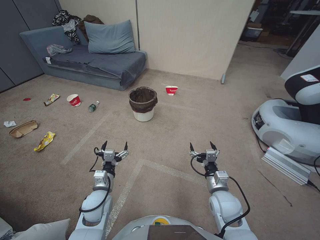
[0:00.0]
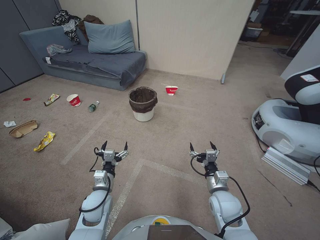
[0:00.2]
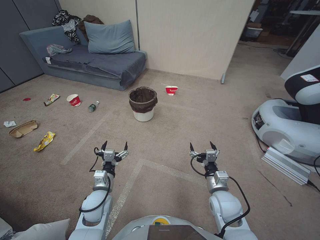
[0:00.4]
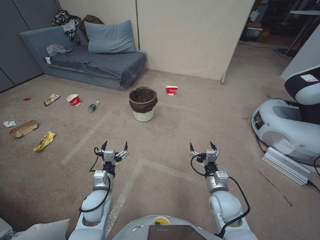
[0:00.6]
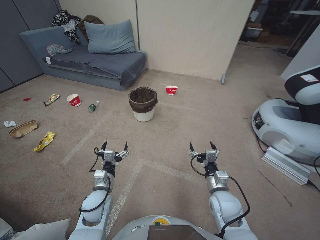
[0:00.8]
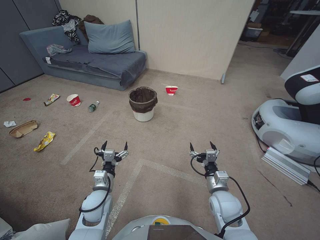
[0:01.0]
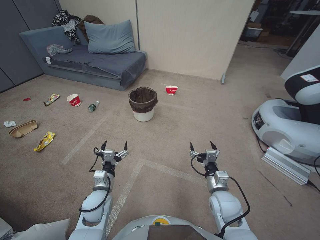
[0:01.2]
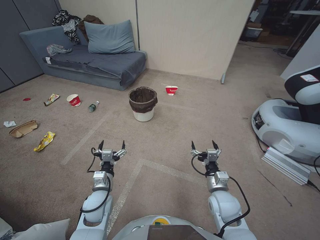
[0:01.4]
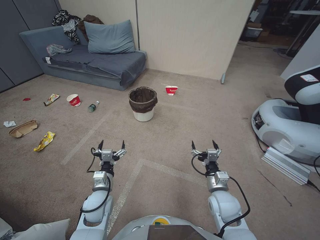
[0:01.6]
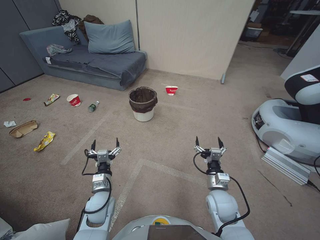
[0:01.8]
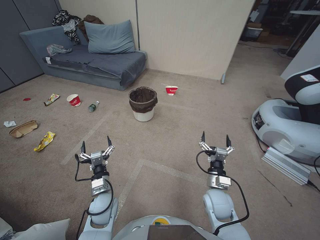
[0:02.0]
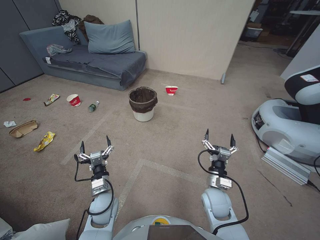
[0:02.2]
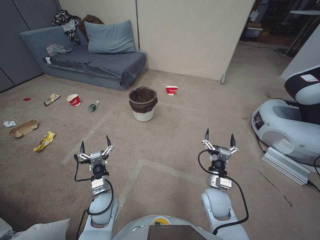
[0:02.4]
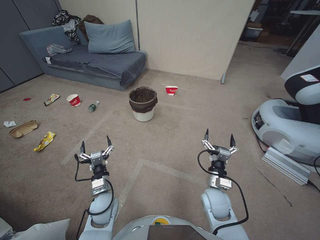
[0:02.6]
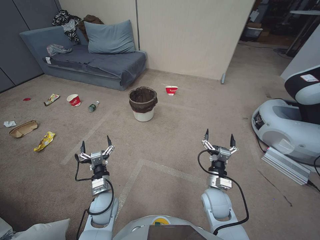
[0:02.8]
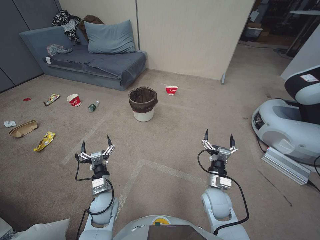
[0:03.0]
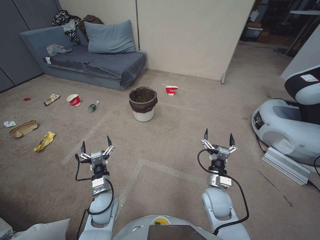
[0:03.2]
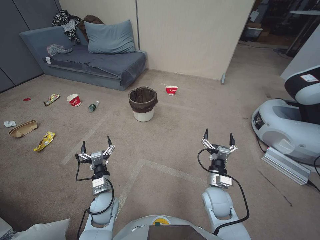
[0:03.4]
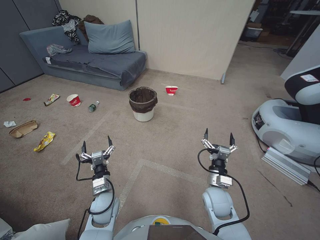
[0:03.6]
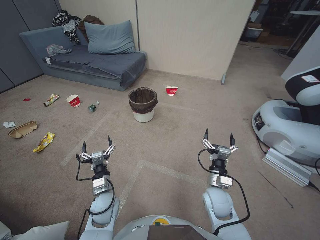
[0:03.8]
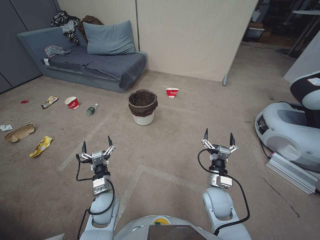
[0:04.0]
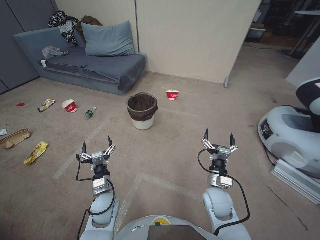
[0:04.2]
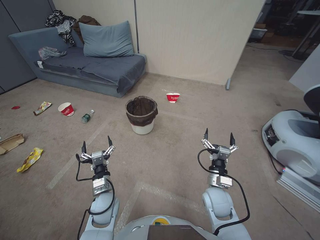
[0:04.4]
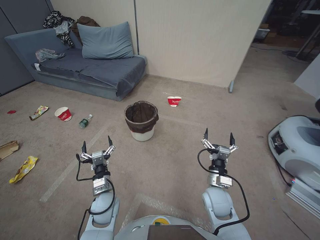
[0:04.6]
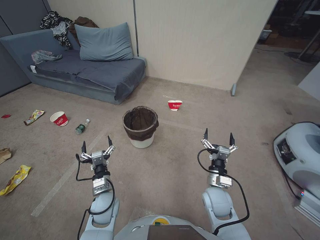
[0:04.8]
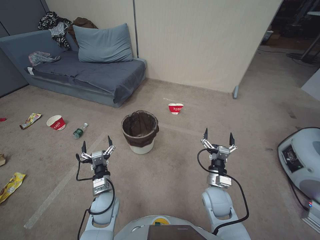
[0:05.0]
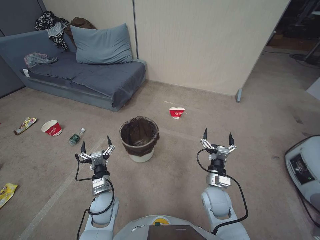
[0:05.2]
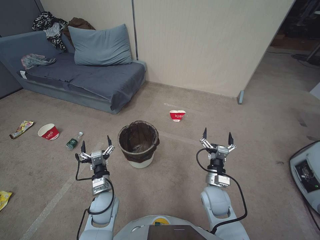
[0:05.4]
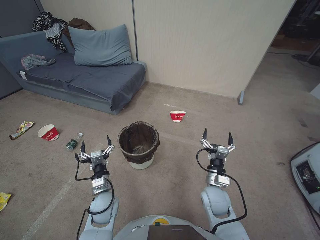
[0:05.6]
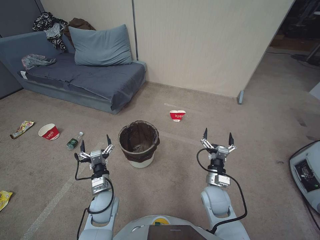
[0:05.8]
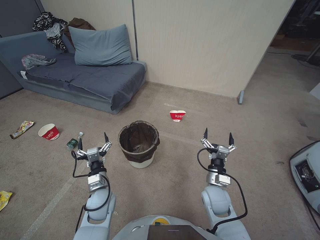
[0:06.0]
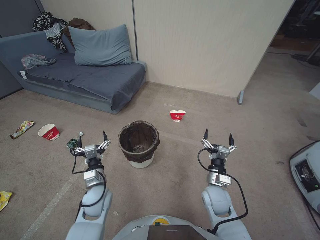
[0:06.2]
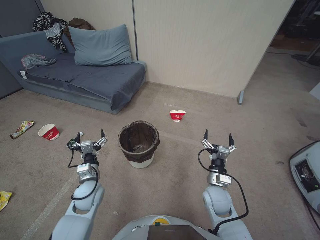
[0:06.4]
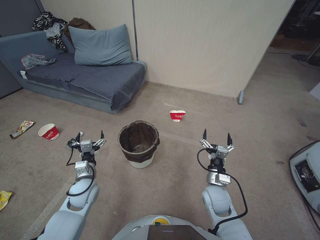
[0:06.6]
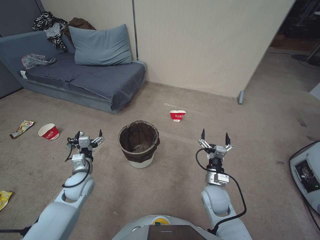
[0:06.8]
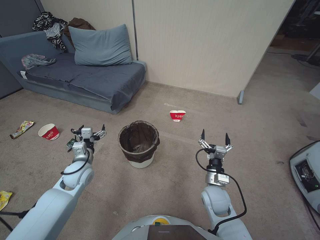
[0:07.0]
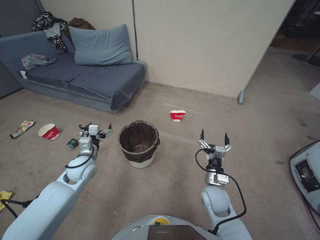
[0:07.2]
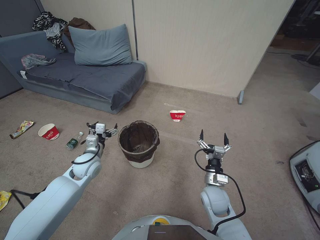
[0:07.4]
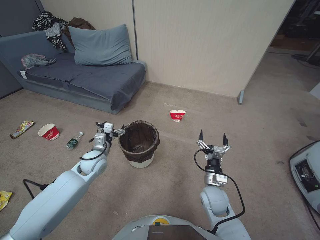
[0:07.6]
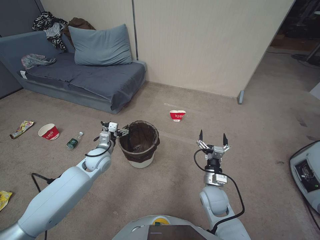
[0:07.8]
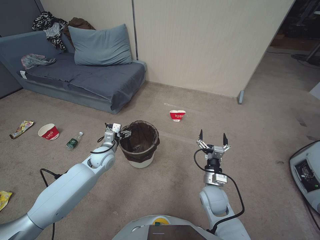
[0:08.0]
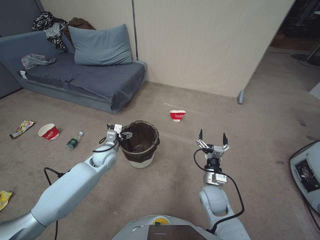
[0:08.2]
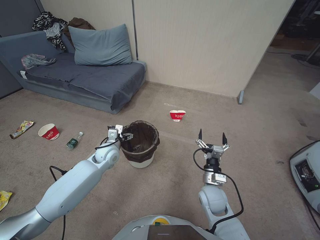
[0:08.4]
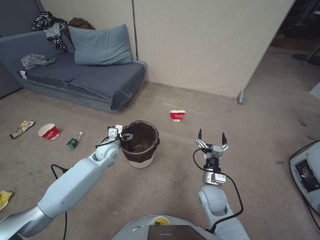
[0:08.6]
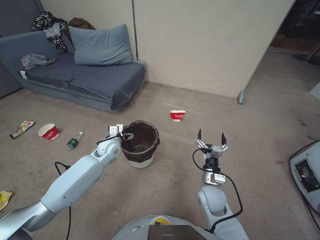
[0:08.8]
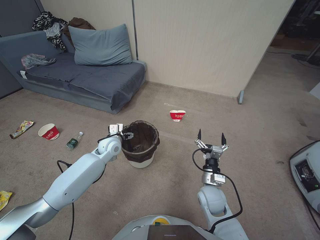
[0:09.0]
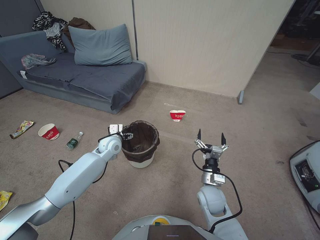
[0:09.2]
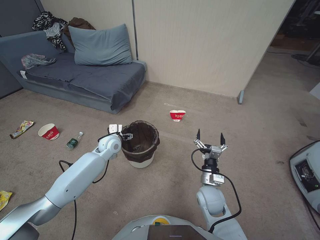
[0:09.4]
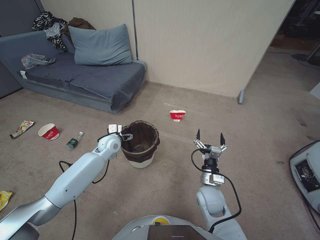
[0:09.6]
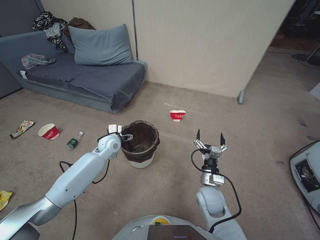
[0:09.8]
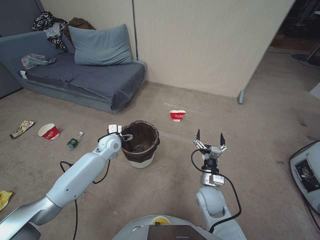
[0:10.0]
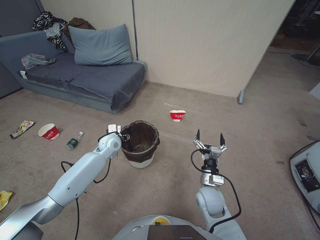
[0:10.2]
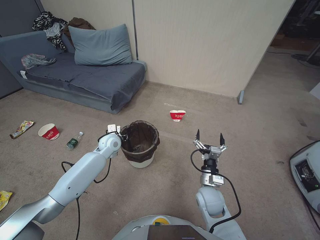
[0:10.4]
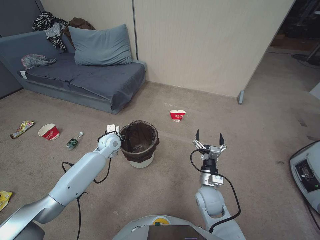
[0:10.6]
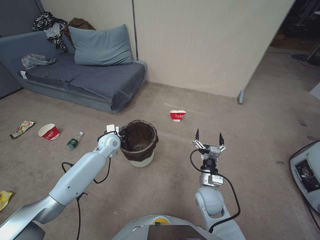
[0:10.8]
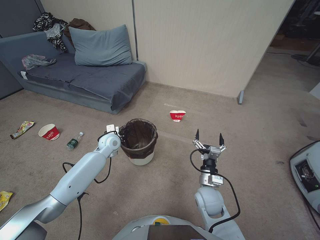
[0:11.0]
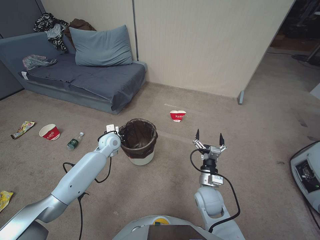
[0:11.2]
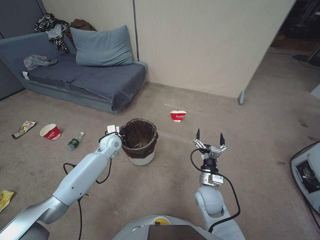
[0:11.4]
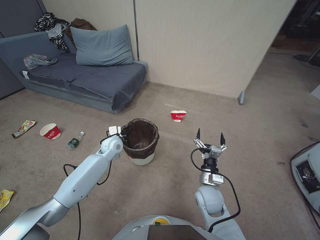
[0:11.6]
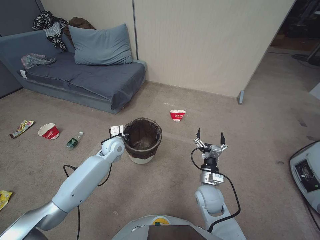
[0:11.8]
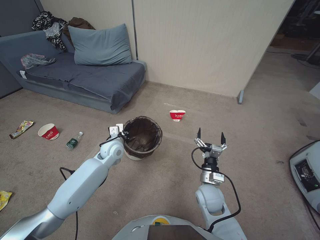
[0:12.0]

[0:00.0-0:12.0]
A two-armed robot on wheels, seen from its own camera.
Task of the whole recording: Pick up the trash bin, then pick up the garbage from the floor and place it into the trash bin.
0:03.0 to 0:04.4: Both grippers stay about where they are.
0:06.0 to 0:07.6: The left gripper is displaced forward, to the left and upward by some 15 cm.
0:07.6 to 0:09.0: The left gripper moves forward and to the right, some 10 cm.
0:09.0 to 0:10.4: The left gripper closes.
0:10.4 to 0:12.0: The left gripper closes its fingers.

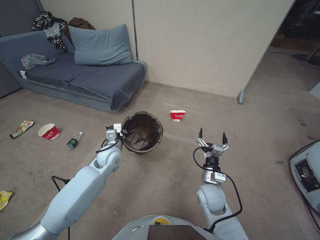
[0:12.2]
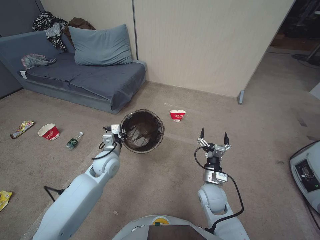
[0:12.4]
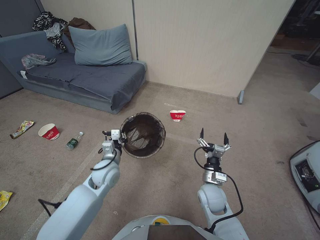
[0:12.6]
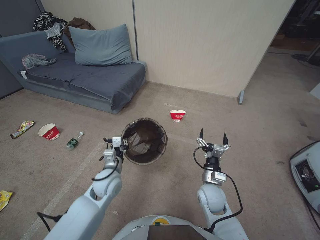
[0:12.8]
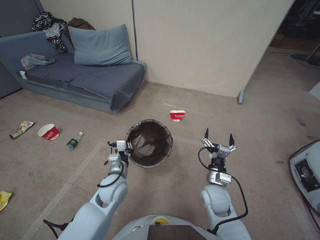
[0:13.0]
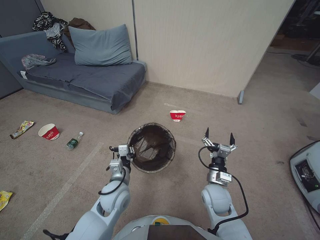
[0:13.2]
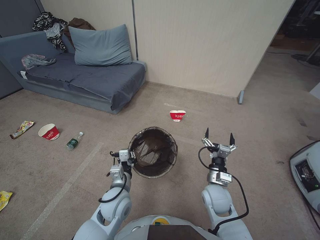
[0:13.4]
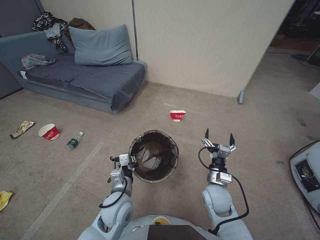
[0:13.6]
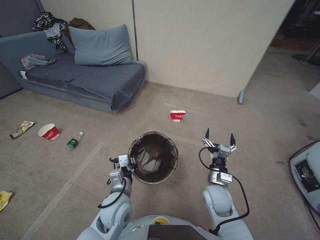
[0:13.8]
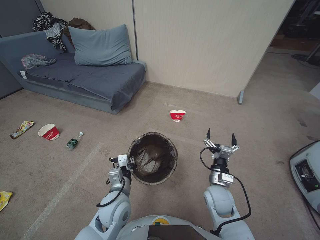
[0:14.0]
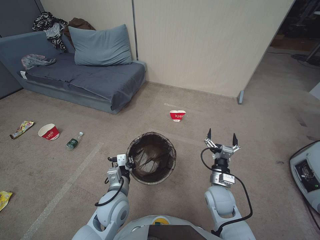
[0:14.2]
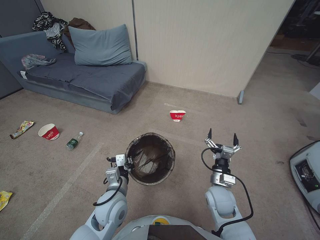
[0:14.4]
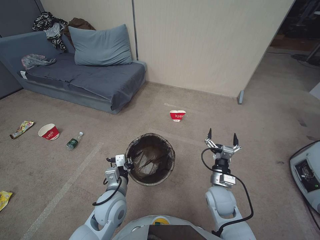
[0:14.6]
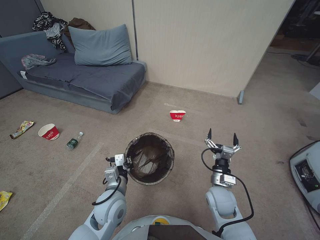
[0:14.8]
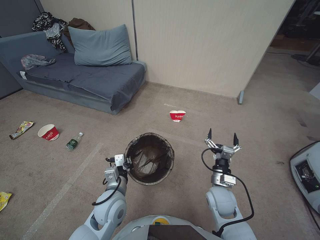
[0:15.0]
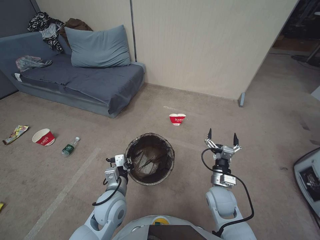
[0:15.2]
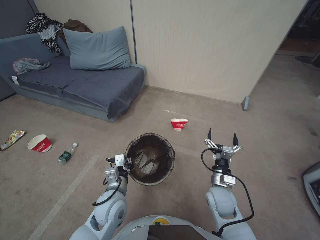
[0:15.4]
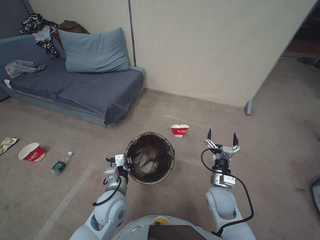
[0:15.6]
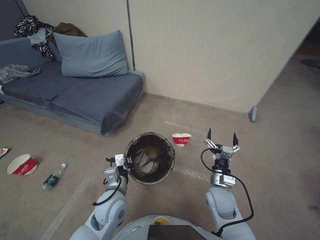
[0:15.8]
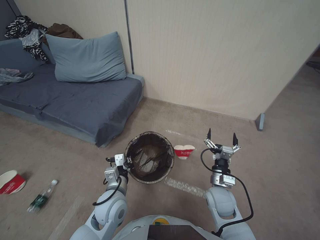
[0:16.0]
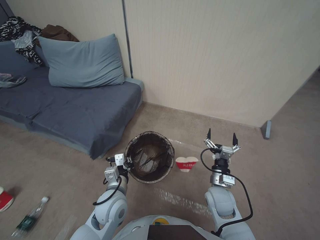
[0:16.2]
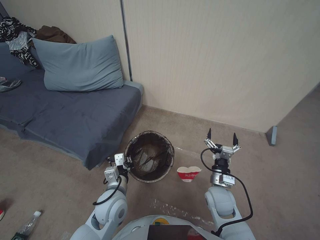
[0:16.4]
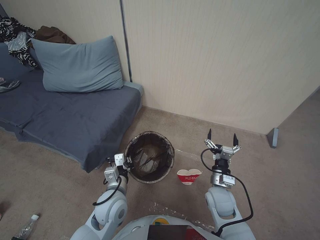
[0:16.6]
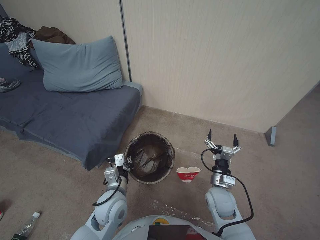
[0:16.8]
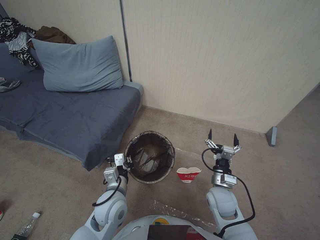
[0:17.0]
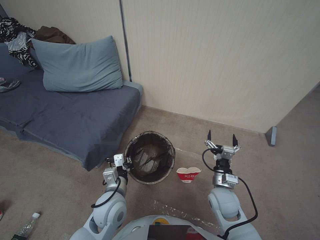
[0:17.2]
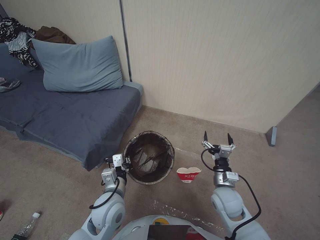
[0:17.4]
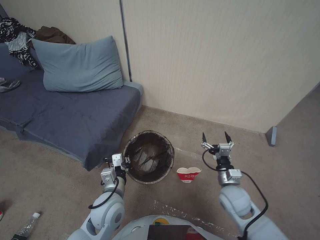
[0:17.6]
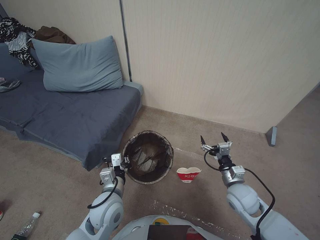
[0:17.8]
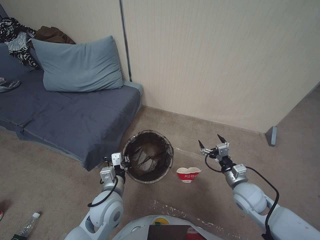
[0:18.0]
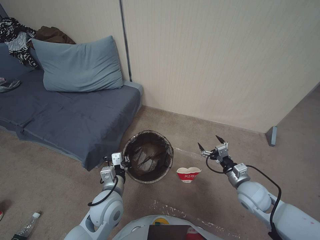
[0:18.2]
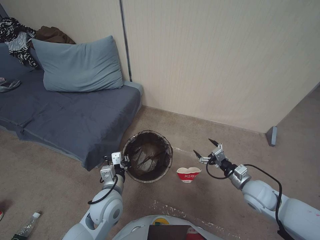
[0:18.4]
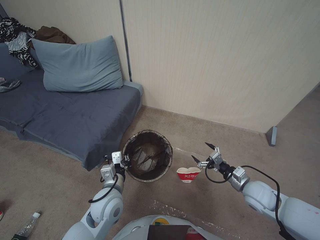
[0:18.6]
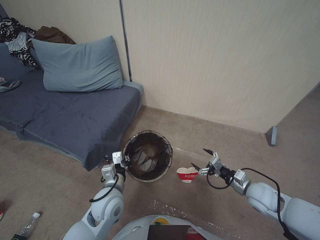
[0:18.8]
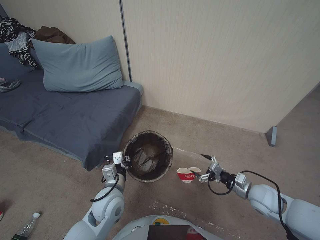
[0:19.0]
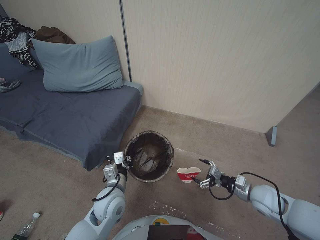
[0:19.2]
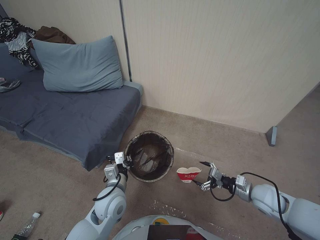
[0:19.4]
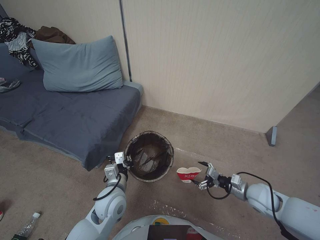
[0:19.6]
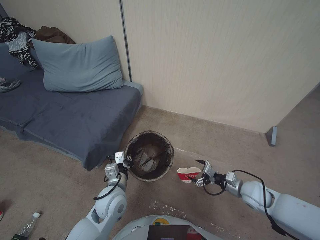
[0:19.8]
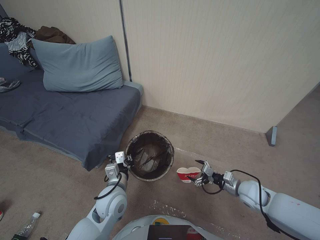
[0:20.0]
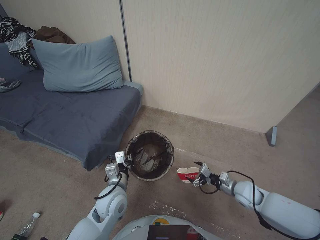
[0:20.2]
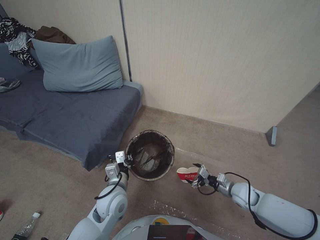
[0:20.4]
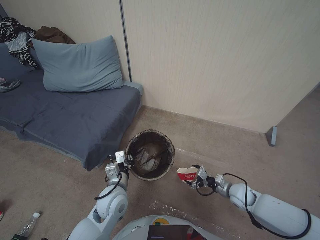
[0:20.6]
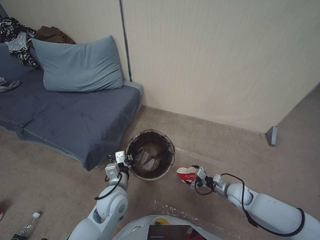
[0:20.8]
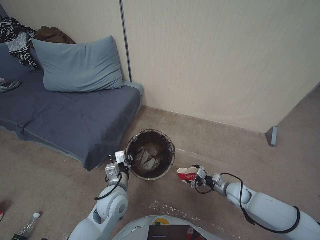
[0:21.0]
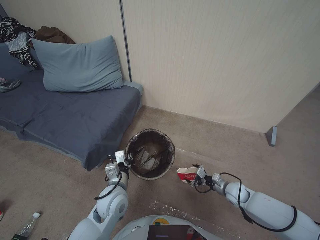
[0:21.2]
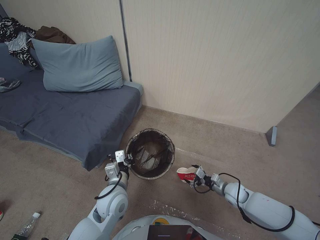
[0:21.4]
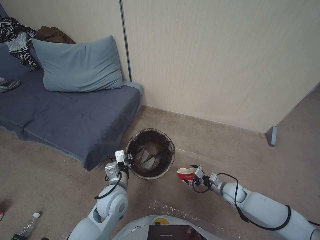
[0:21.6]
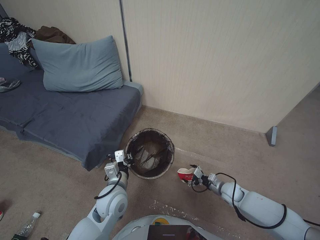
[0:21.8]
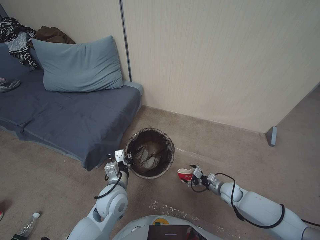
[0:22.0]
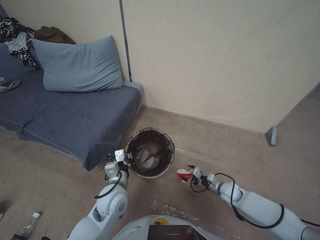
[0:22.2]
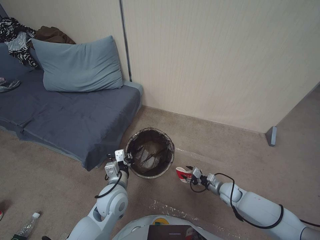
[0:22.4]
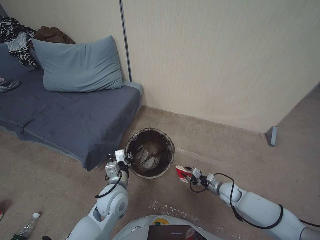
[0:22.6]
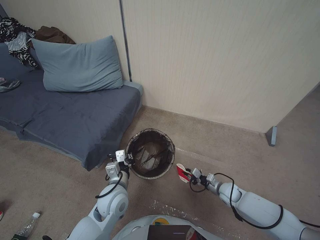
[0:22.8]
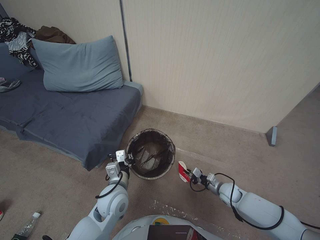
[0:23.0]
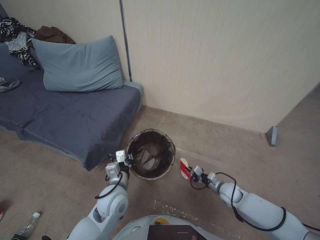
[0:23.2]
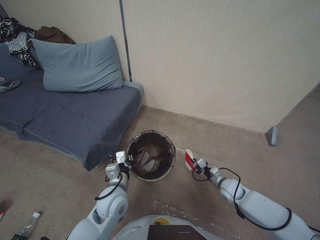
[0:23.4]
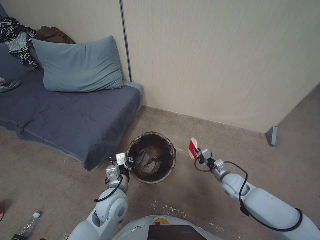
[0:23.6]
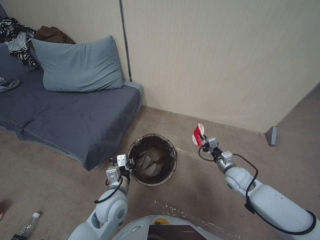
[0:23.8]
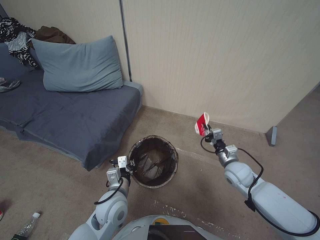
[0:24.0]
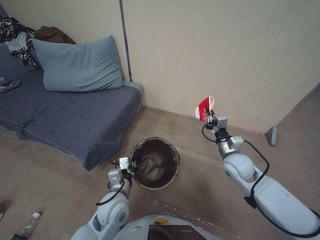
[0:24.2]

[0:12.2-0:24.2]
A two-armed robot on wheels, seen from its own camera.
Task of the whole recording: Pick up the trash bin, then pick up the garbage from the floor and place it into the trash bin.
0:12.2 to 0:13.8: The left gripper travels backward by approximately 20 cm.
0:13.8 to 0:15.2: The grippers move only a little.
0:16.6 to 0:18.2: The right gripper shifts approximately 10 cm to the right.
0:18.2 to 0:19.8: The right gripper travels to the right by about 5 cm.
0:19.8 to 0:21.2: The right gripper goes some 10 cm downward.
0:21.2 to 0:22.6: The right gripper closes.
0:22.6 to 0:24.2: The right gripper moves upward, roughly 20 cm, and closes up.
